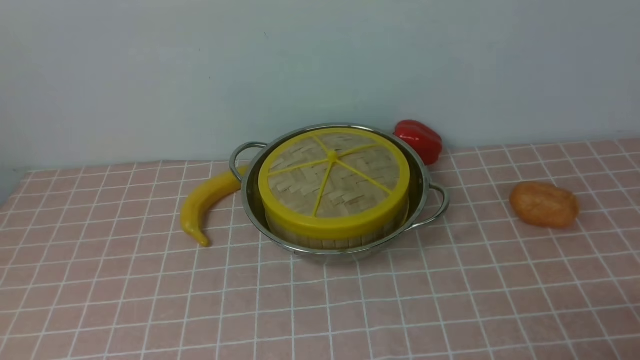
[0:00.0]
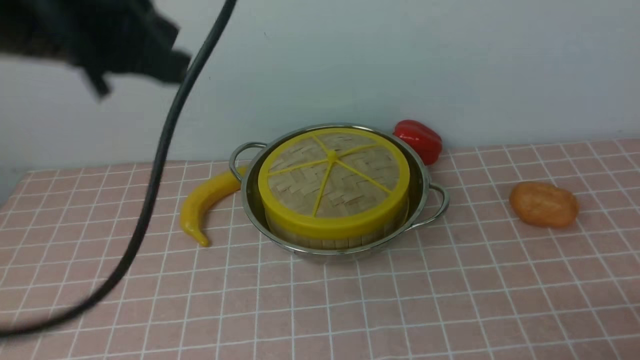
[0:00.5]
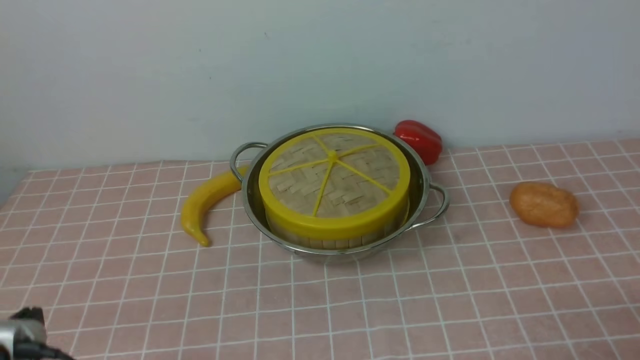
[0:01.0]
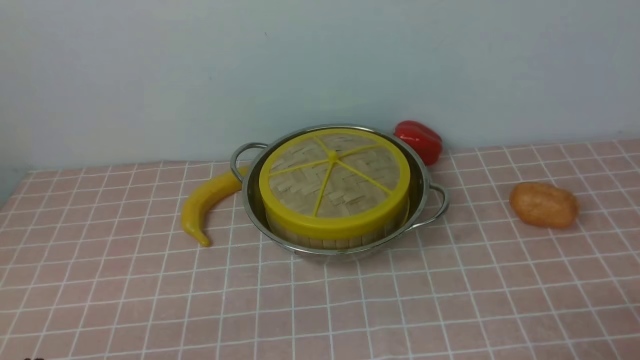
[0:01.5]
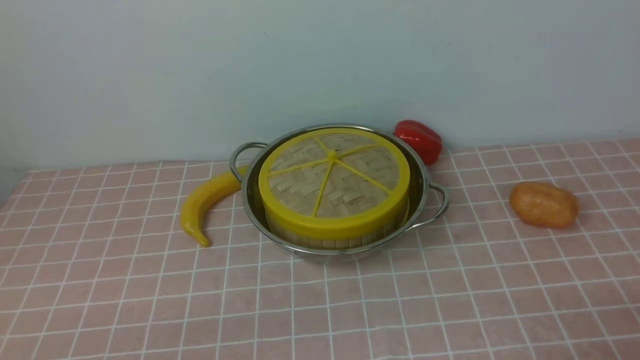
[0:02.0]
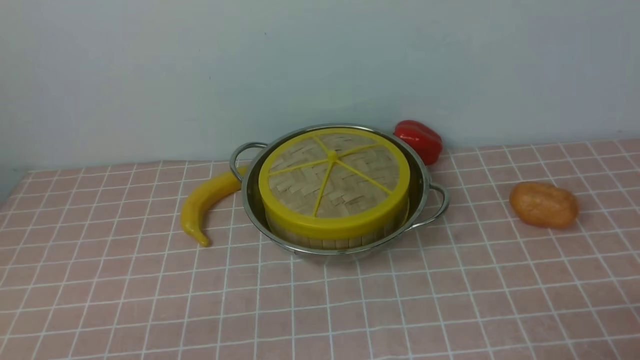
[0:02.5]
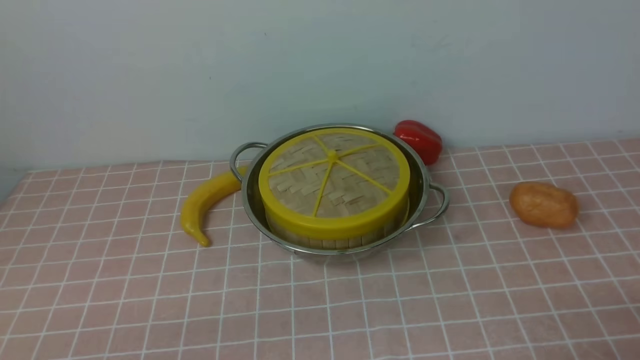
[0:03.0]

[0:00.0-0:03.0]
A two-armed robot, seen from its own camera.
Task of the whole recording: place the steamer in the pot on the pink tablecloth, and put the lid on the steamer.
0:01.5 to 0:03.0: The two grippers keep their place.
